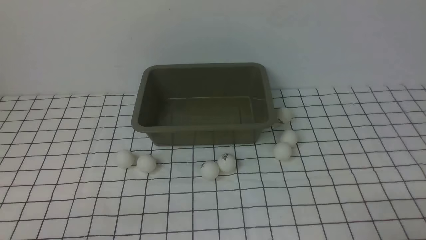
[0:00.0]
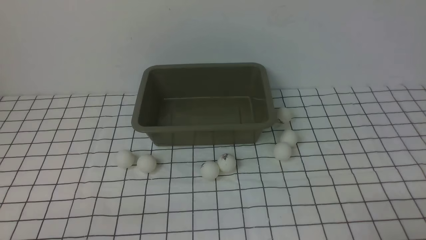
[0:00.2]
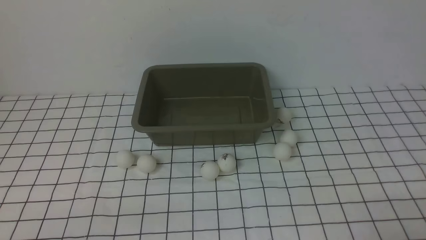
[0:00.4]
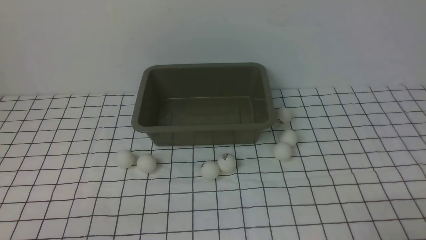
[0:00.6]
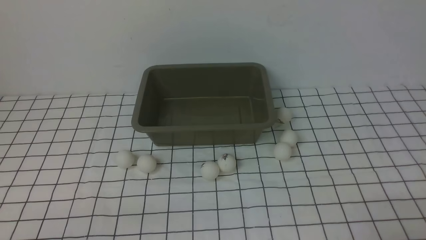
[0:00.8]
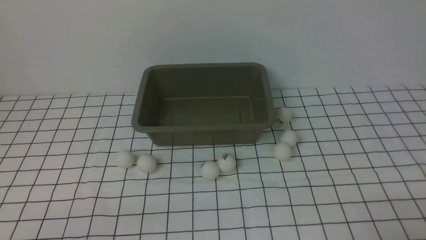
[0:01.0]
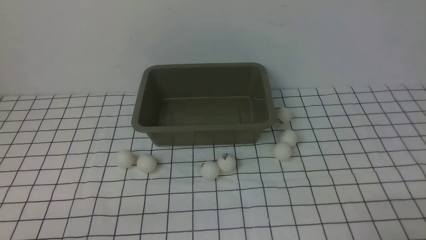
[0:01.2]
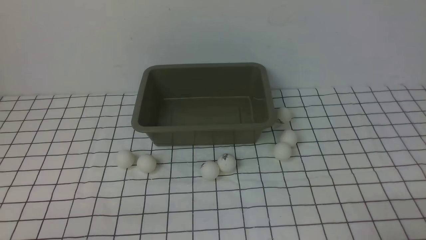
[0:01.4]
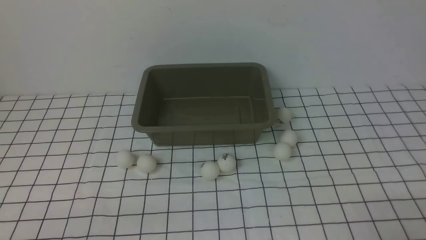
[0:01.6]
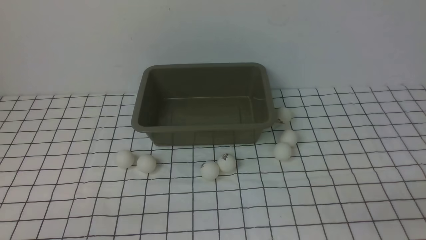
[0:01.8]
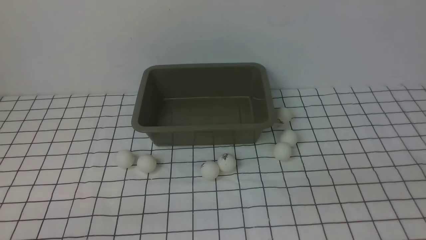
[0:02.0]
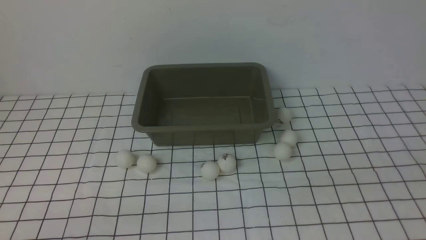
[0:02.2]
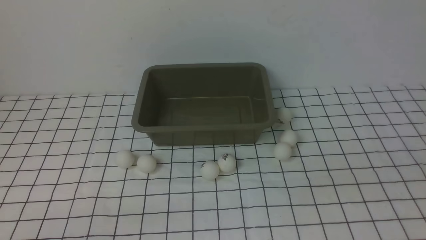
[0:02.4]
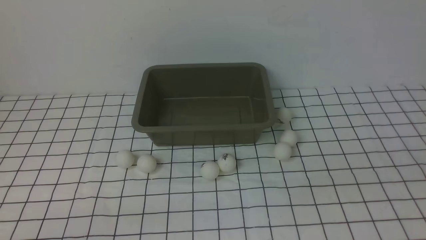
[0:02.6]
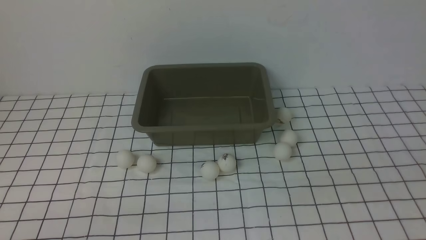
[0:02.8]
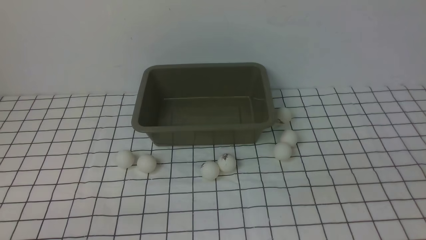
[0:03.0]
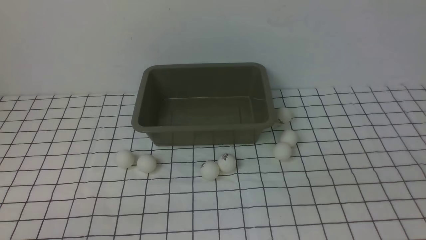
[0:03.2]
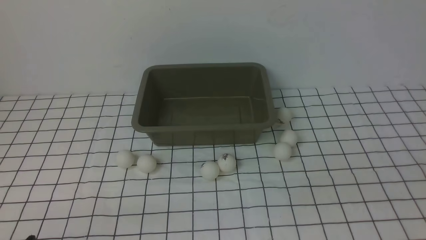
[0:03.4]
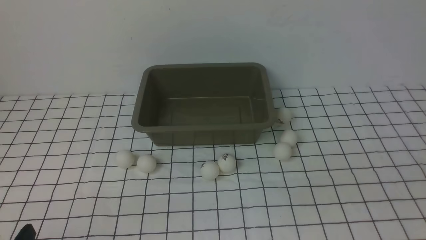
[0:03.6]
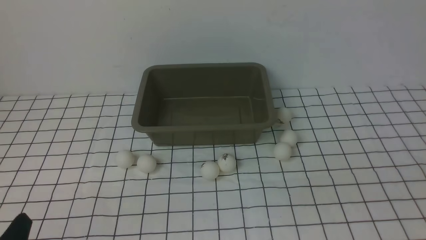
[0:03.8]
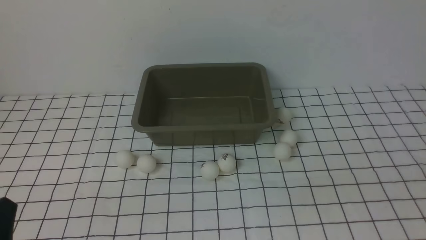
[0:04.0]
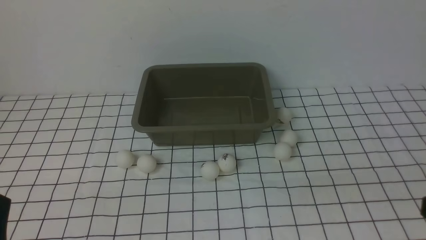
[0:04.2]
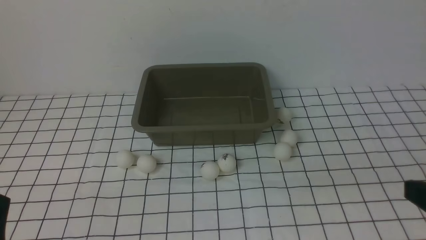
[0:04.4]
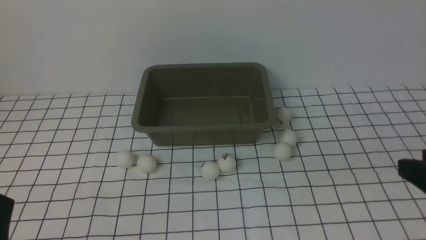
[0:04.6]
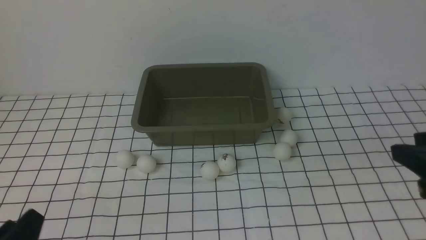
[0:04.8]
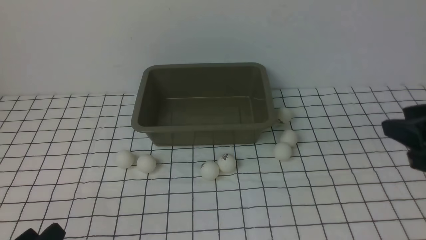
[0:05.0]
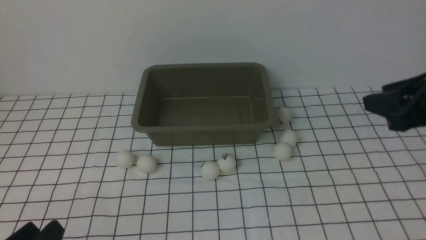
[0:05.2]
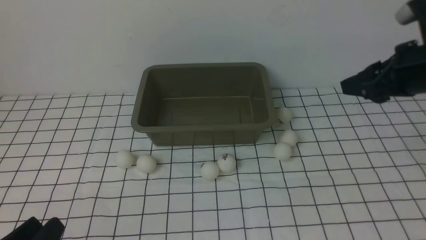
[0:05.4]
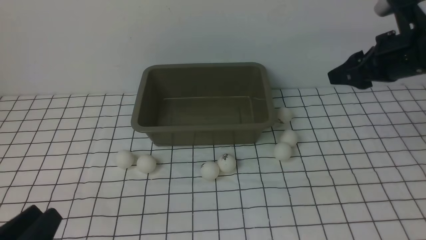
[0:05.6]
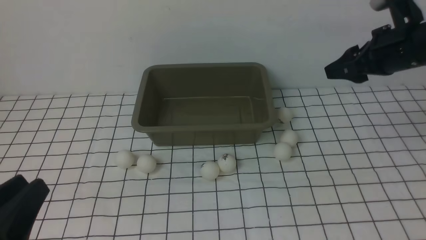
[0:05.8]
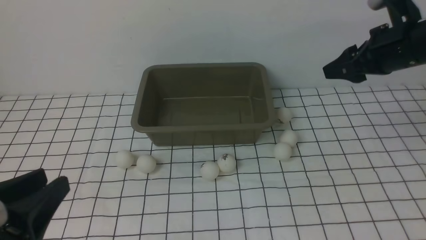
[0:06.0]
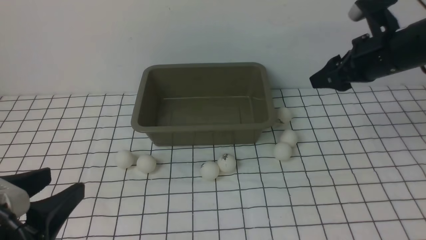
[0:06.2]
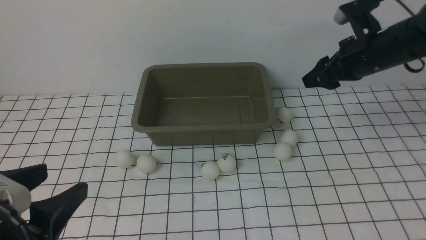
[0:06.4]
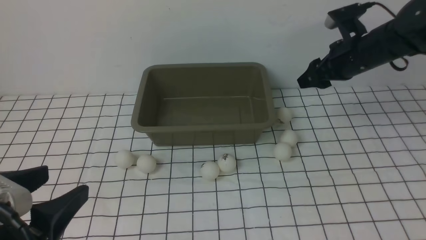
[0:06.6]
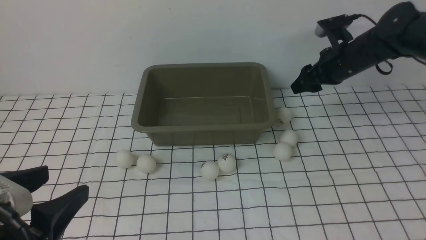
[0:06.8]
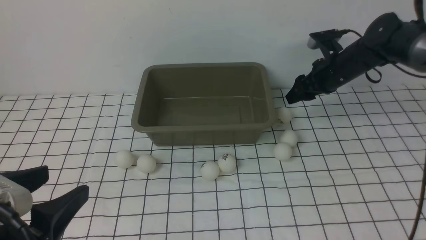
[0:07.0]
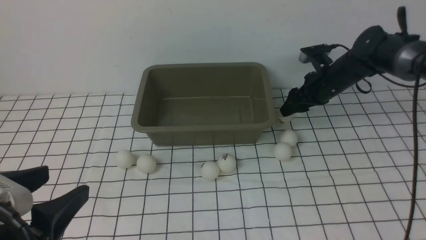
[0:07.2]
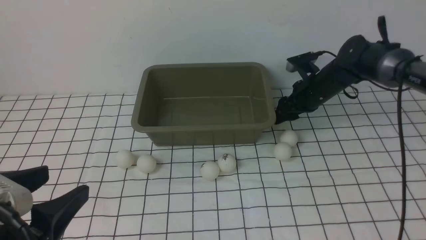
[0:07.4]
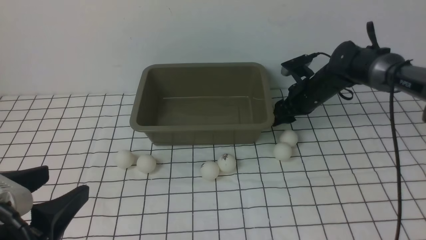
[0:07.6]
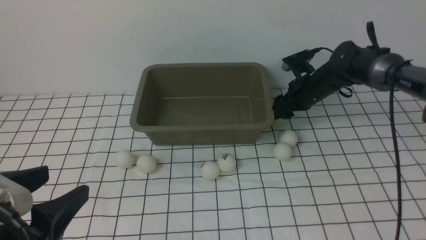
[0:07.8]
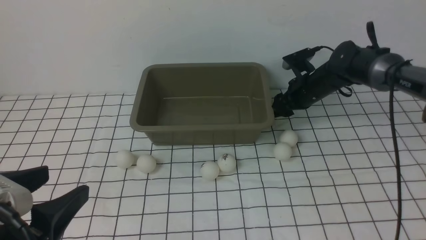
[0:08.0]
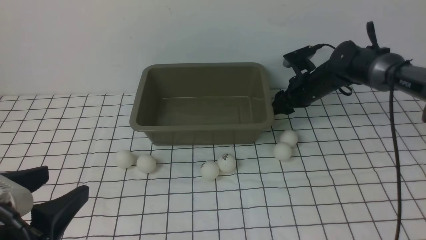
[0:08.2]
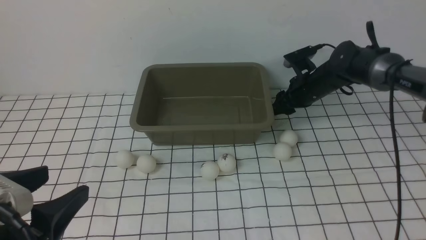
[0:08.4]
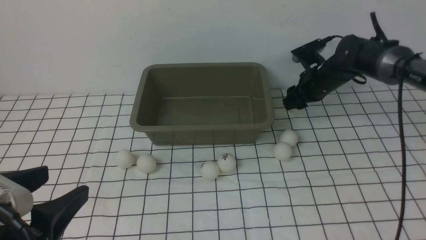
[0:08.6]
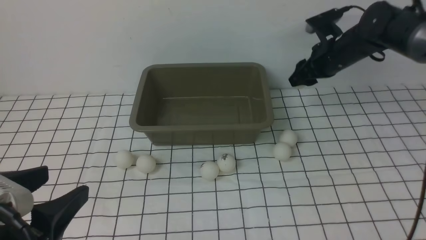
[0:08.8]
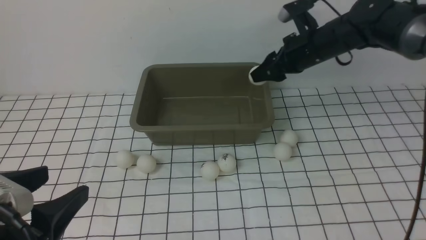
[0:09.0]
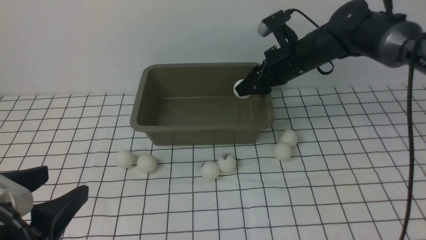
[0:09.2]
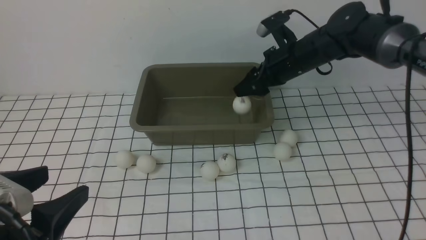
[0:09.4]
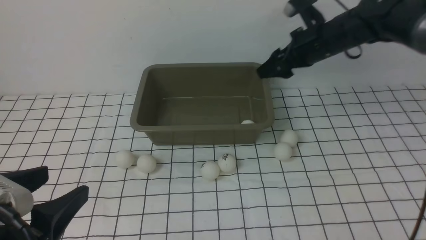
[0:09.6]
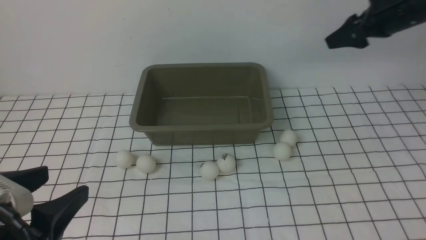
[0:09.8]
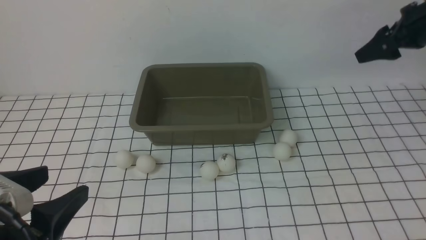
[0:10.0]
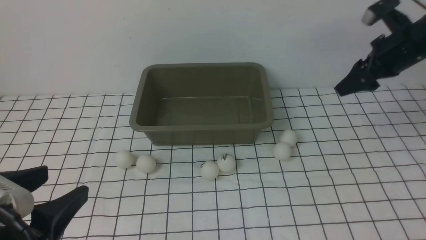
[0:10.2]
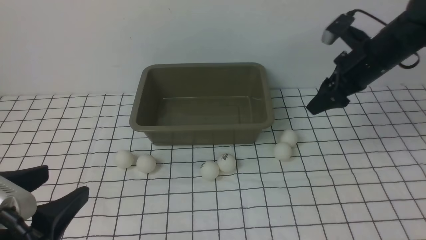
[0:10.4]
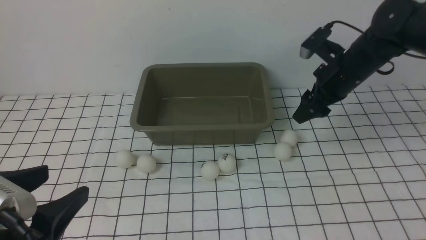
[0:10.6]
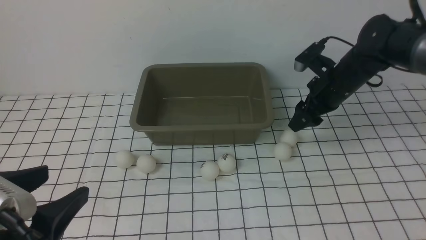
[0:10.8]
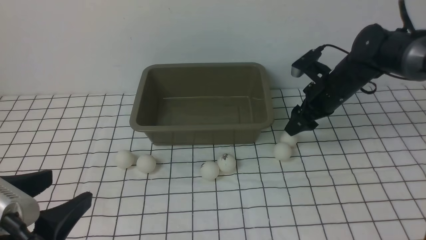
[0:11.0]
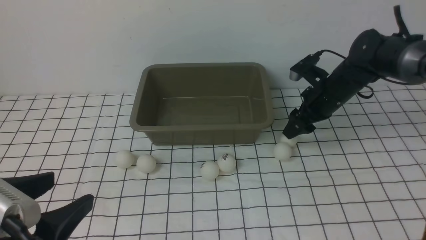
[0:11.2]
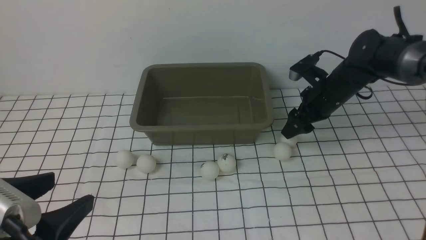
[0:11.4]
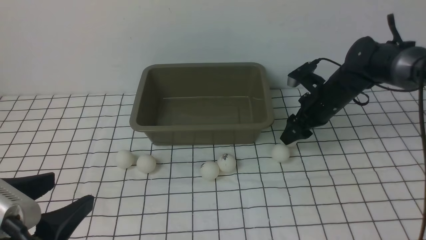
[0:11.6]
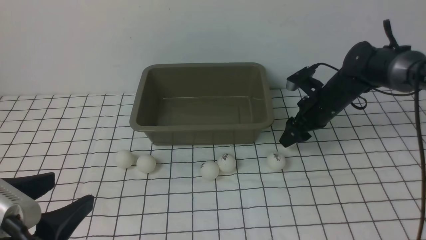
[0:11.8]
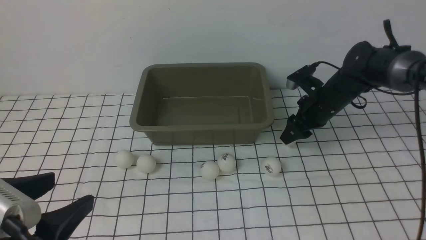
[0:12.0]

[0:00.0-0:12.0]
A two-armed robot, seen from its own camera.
Step, 0:00.0 to 0:08.8: use the right arm to clamp the table tennis ball closest to it.
Step, 0:09.2 to 0:09.4: use the right arm to put the table tennis ball into the box.
0:04.4 to 0:06.0: The left gripper travels upward by approximately 10 cm, and closes and opens again. The right gripper travels forward by some 30 cm, and opens its fingers.
0:06.0 to 0:07.6: The left gripper opens up; the right gripper moves downward and forward, some 20 cm.
0:07.6 to 0:09.0: The right gripper goes some 10 cm upward.
0:09.0 to 0:10.4: The right gripper shifts some 10 cm to the right, and opens up.
0:10.4 to 0:12.0: The right gripper heads downward, covering some 10 cm, and closes.

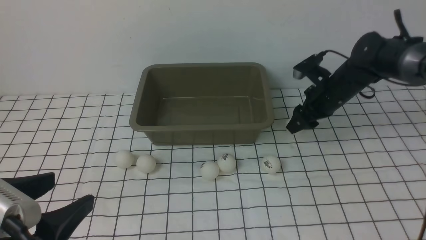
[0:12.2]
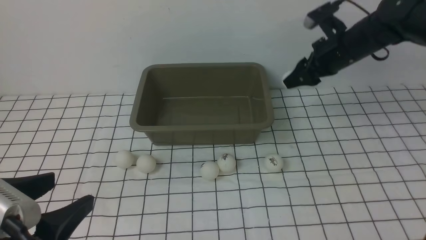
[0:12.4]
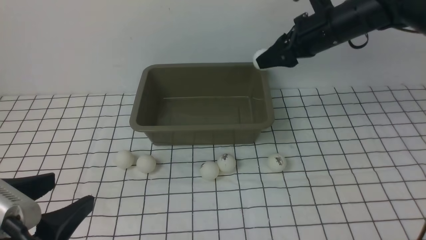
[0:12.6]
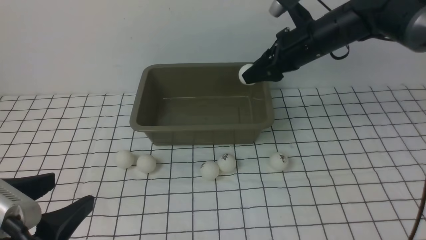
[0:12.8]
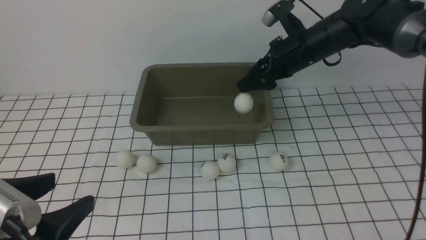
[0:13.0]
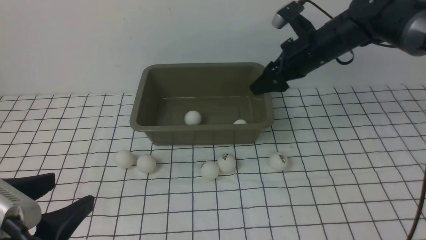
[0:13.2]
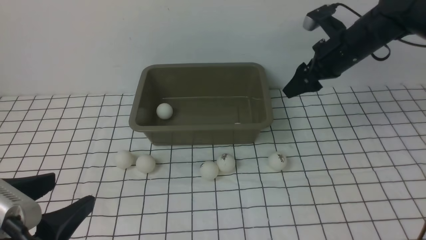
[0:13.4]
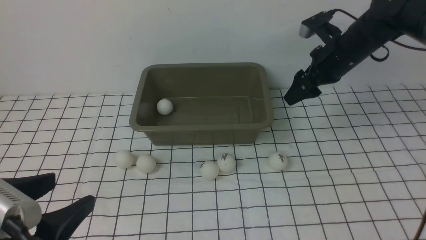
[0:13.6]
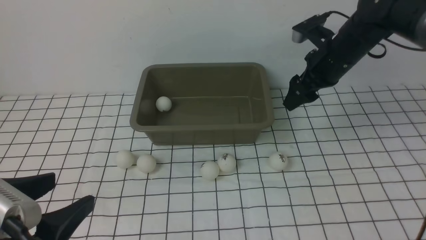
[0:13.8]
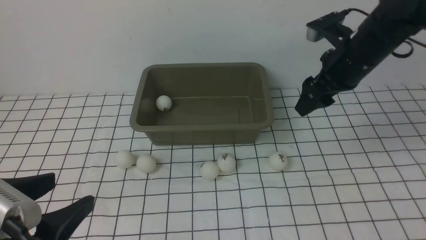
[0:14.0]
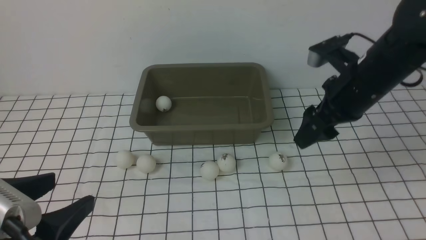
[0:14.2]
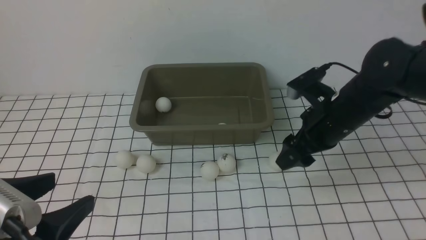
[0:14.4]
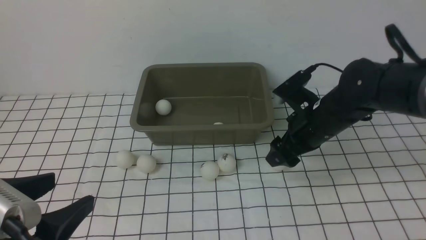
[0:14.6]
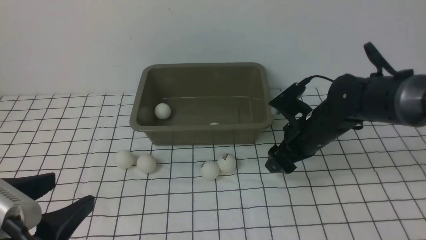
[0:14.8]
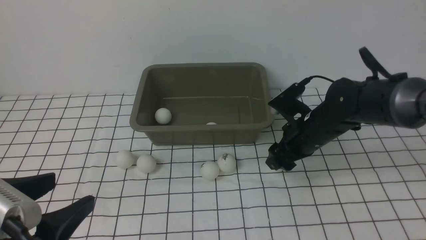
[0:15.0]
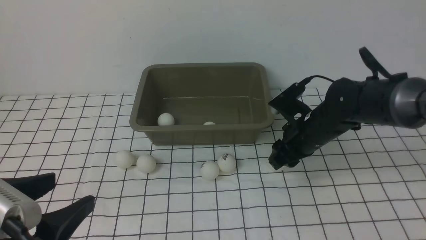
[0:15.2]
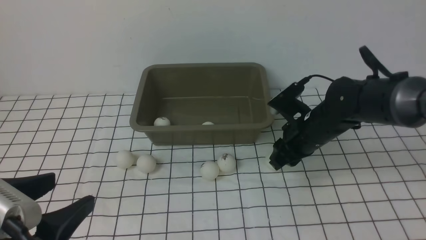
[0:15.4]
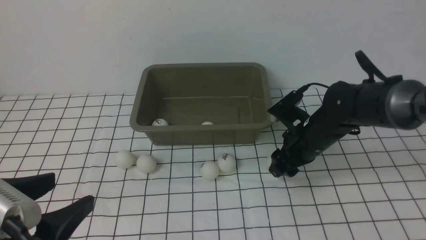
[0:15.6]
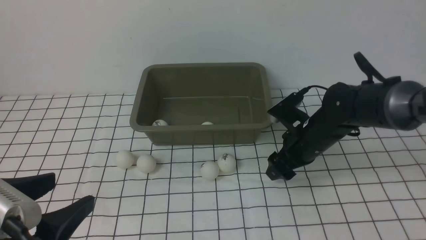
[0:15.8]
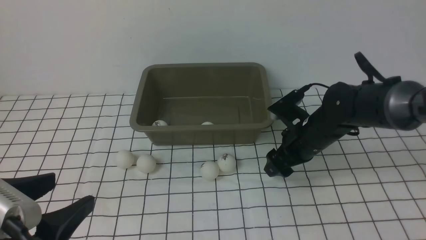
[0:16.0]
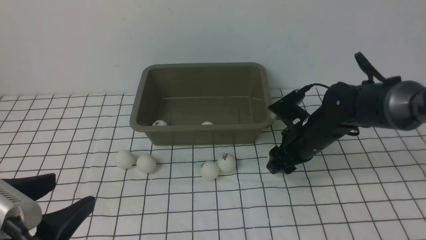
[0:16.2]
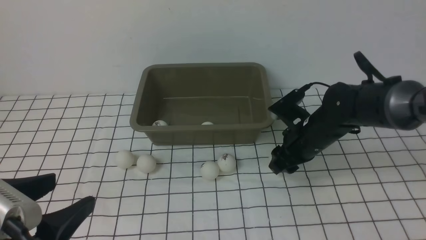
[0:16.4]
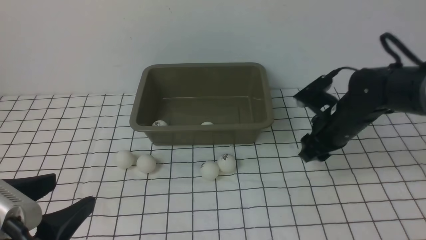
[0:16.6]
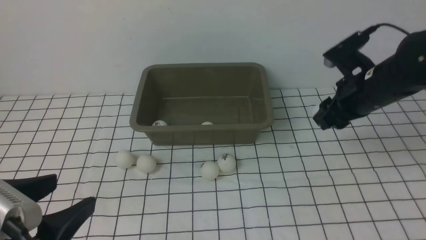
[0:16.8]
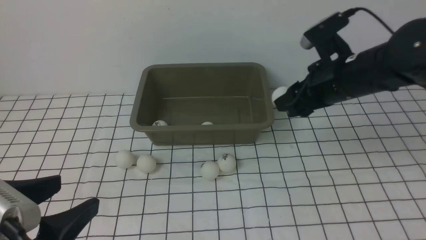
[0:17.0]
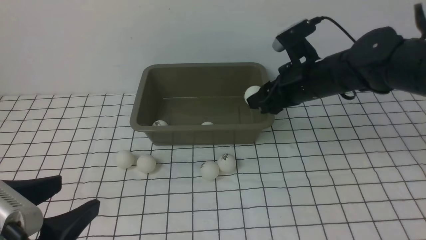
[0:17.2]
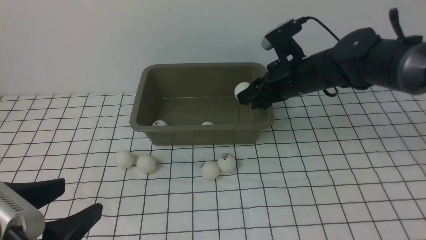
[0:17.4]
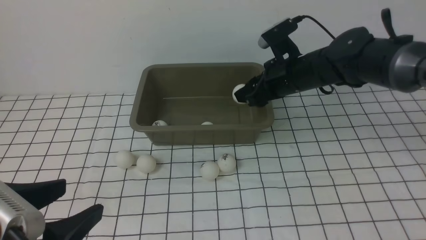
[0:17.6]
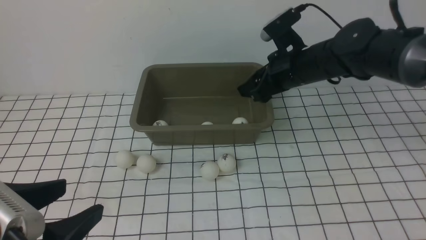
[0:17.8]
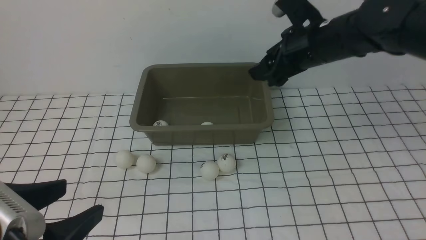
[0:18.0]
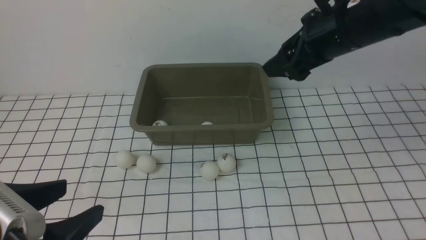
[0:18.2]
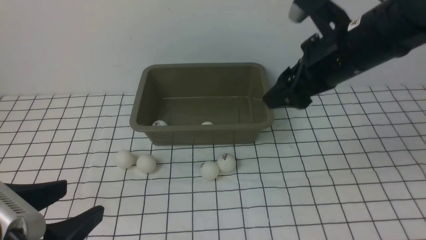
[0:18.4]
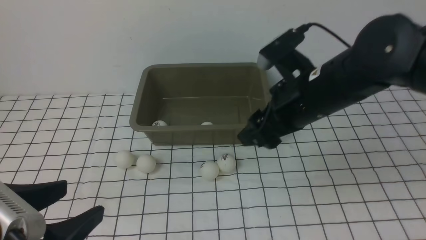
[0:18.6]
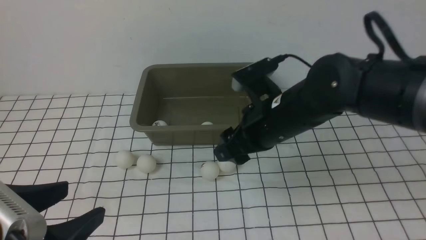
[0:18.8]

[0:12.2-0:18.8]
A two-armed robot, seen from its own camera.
Step, 0:12.6 to 0:13.0: use the right arm to put the table tennis ball into the box.
Step, 0:13.4 to 0:16.8: use the right arm to clamp the table tennis ball closest to it.
Step, 0:17.0 to 0:17.8: use the right arm to put the table tennis ball into the box.
0:12.2 to 0:13.8: The right gripper shifts approximately 10 cm upward and backward, and opens up.
0:13.8 to 0:15.4: The right gripper moves downward, roughly 10 cm, and closes up.
0:15.4 to 0:17.2: The right gripper shifts about 10 cm upward, and opens and closes again.
0:17.2 to 0:18.8: The right gripper goes roughly 10 cm backward and to the left, and opens.
